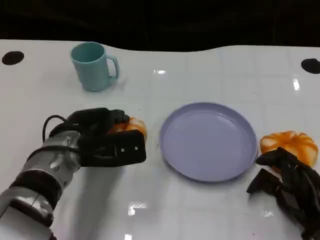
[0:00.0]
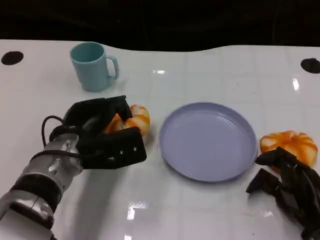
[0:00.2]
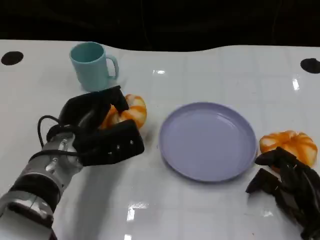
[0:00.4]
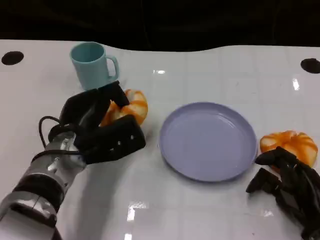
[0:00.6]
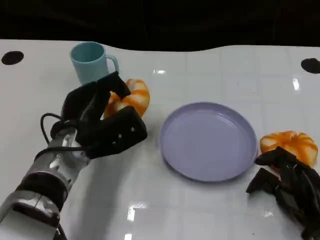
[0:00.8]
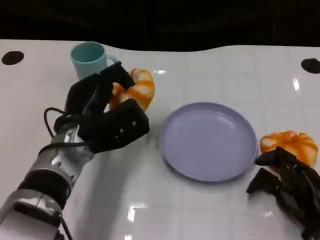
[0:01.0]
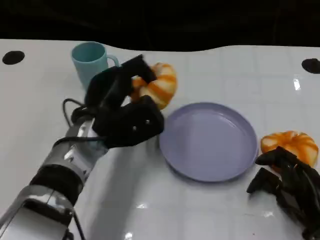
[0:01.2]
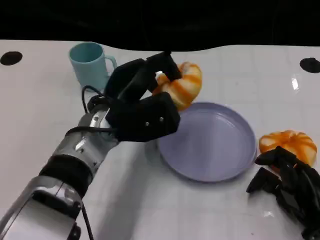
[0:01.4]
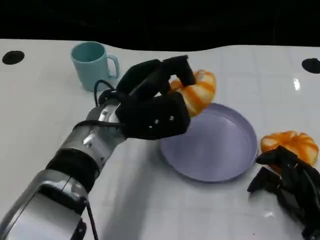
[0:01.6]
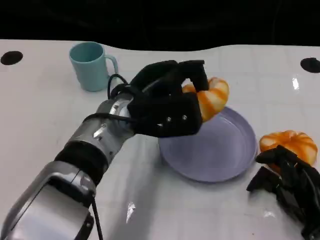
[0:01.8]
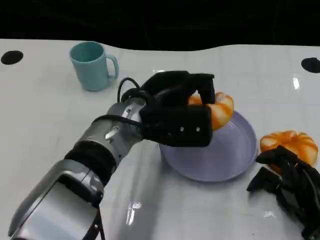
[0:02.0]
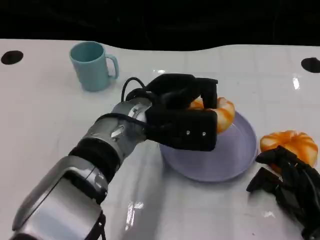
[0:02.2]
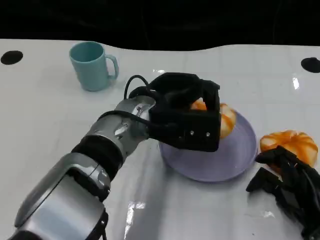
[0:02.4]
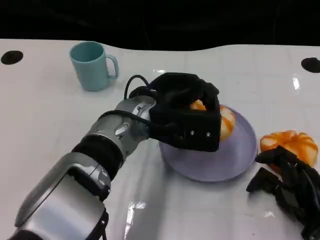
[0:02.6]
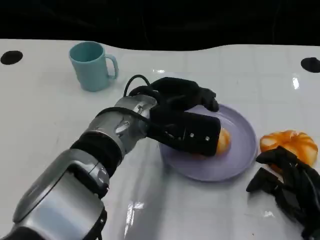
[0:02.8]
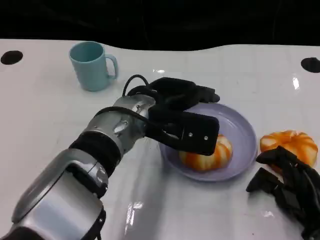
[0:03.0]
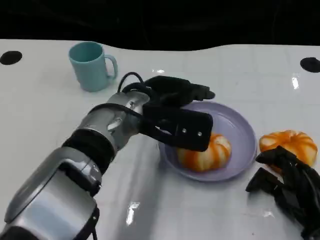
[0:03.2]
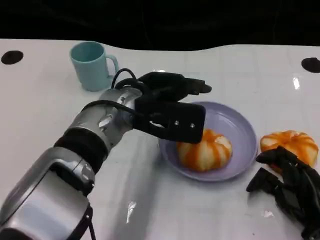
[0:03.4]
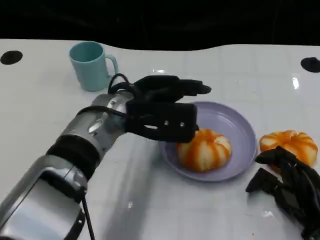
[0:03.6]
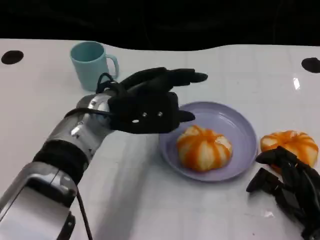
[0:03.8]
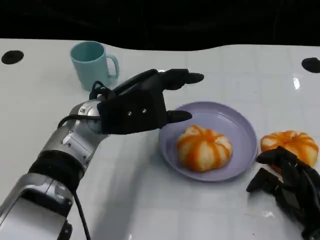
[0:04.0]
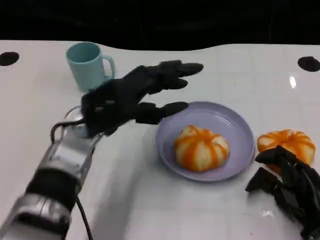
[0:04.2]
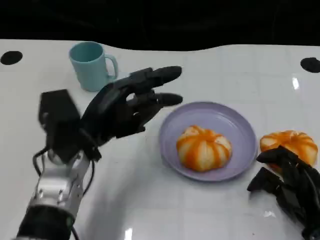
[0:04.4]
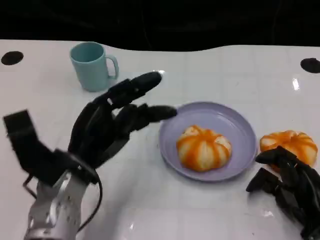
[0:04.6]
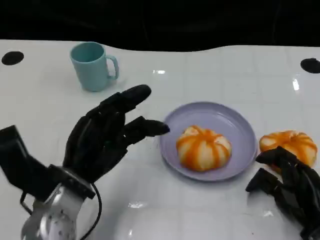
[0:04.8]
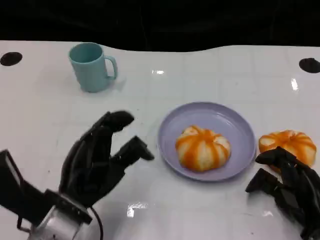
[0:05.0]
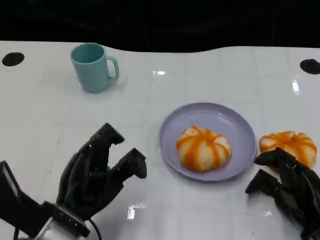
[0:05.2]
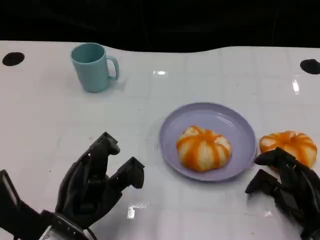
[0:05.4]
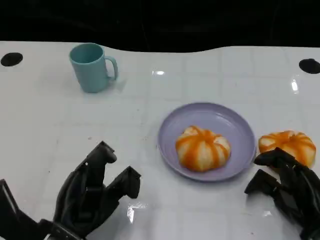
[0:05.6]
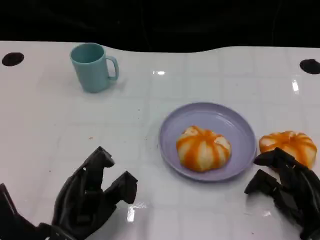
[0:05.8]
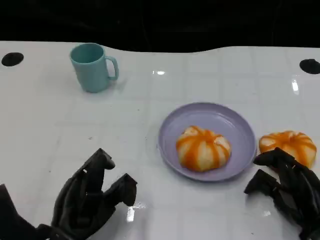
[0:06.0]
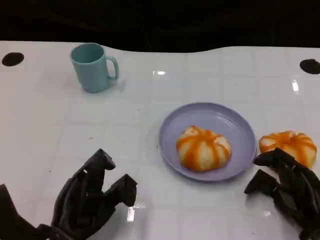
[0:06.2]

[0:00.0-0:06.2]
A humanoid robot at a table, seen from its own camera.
Task of the whole recording: Grasp the bread from the table and place it into the plate.
0:00.0 to 0:01.6: The left hand moves to the right and upward, about 10 cm.
0:03.2 to 0:04.6: The left hand goes some 15 cm to the left, backward and downward.
0:04.6 to 0:06.2: The left hand goes approximately 10 cm backward and downward.

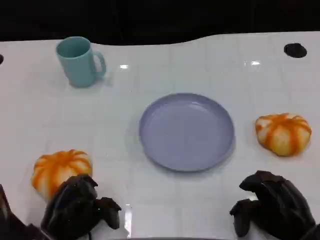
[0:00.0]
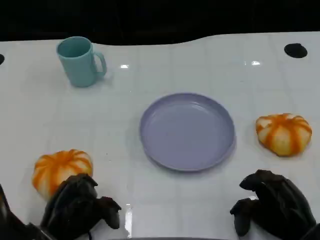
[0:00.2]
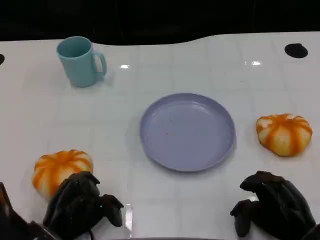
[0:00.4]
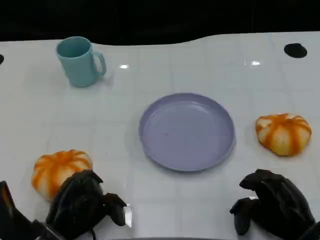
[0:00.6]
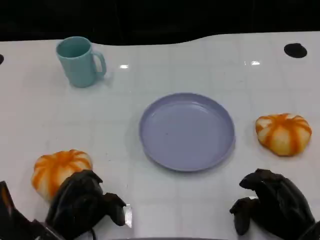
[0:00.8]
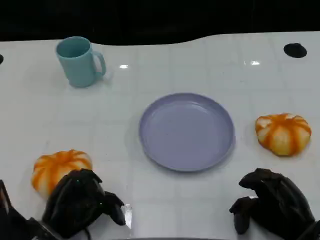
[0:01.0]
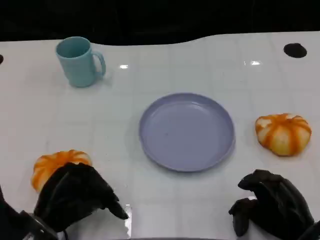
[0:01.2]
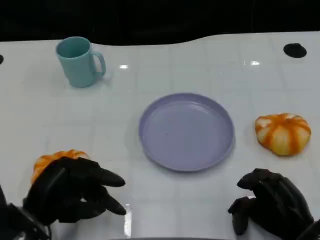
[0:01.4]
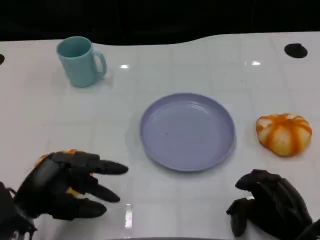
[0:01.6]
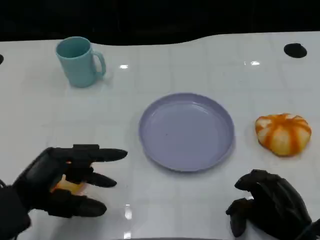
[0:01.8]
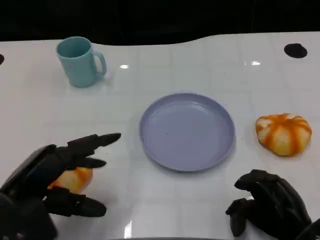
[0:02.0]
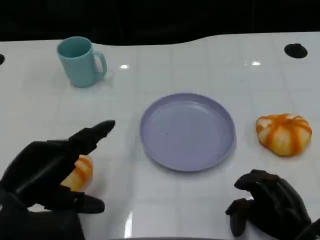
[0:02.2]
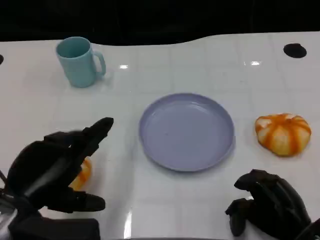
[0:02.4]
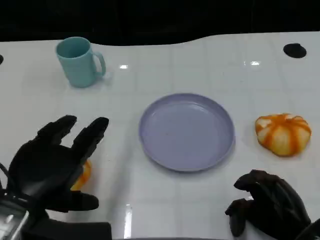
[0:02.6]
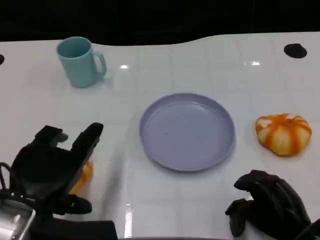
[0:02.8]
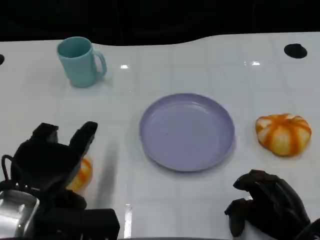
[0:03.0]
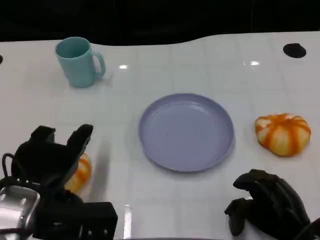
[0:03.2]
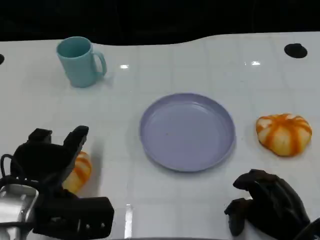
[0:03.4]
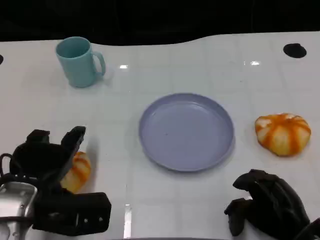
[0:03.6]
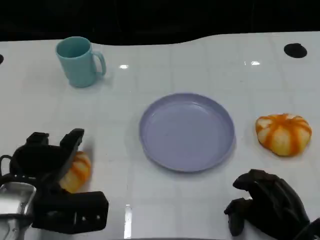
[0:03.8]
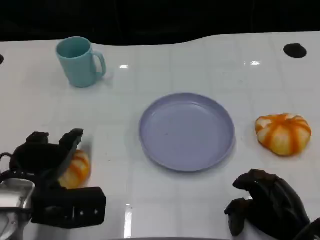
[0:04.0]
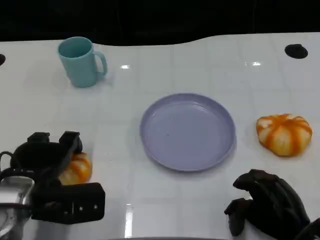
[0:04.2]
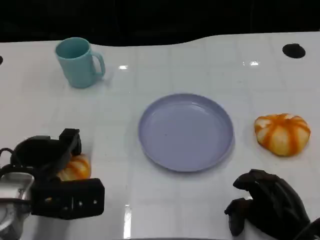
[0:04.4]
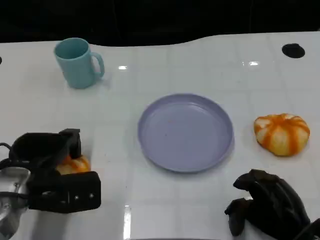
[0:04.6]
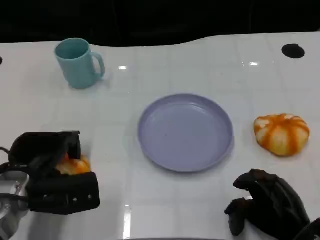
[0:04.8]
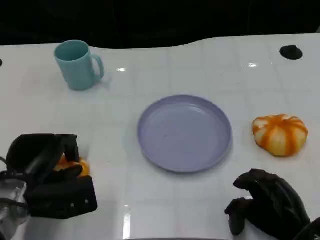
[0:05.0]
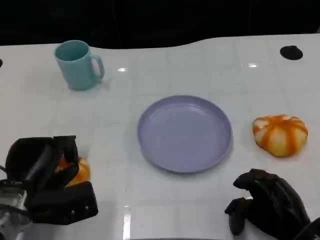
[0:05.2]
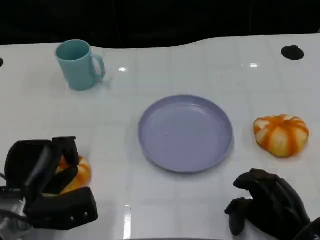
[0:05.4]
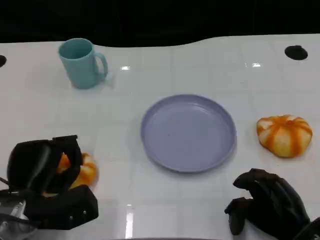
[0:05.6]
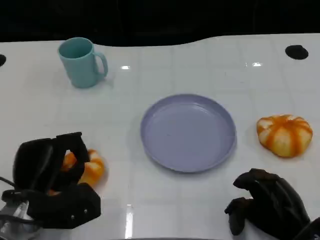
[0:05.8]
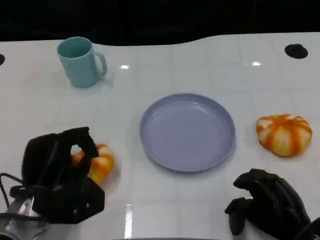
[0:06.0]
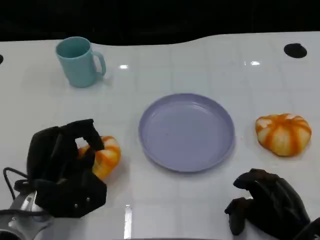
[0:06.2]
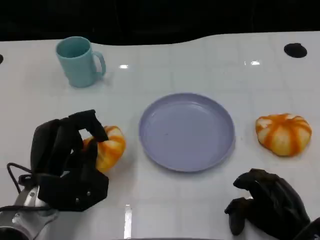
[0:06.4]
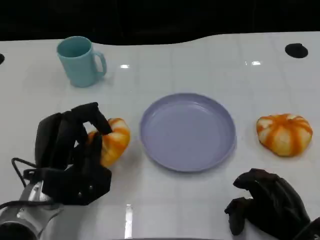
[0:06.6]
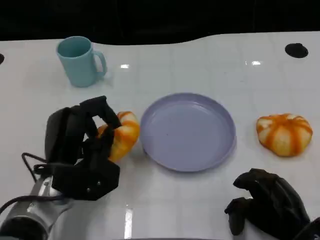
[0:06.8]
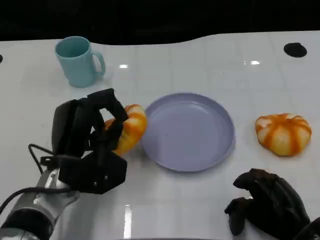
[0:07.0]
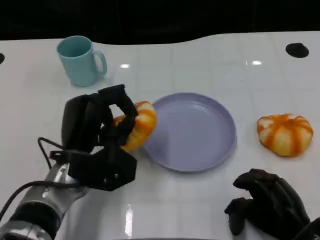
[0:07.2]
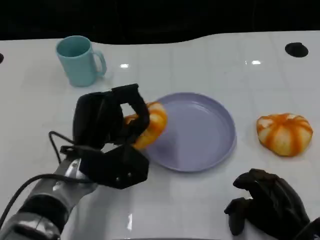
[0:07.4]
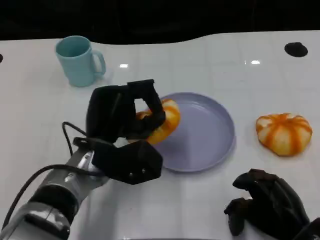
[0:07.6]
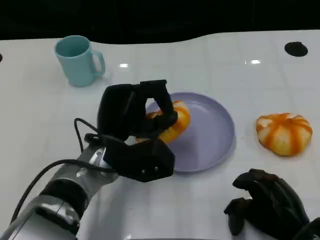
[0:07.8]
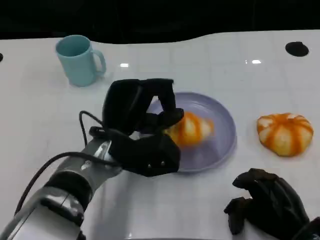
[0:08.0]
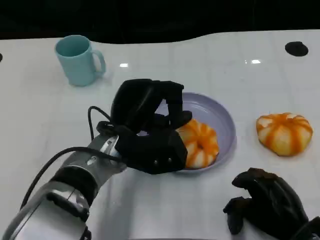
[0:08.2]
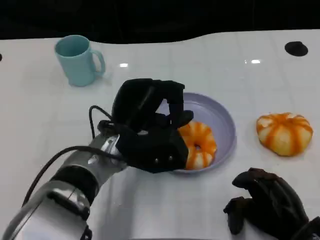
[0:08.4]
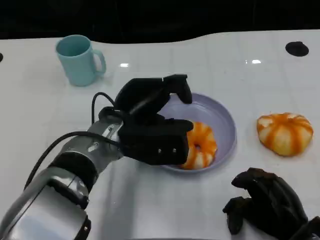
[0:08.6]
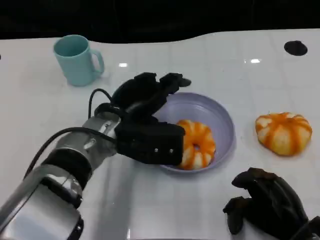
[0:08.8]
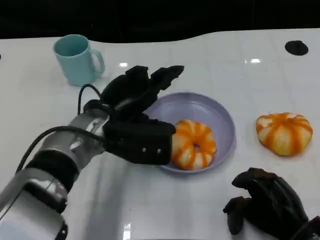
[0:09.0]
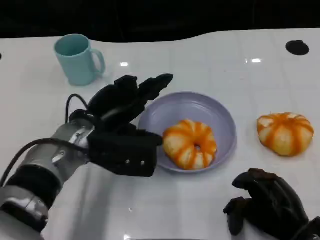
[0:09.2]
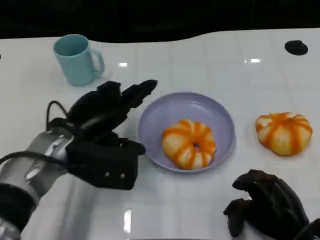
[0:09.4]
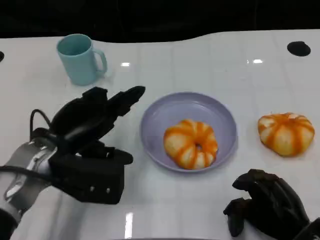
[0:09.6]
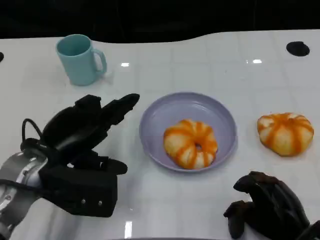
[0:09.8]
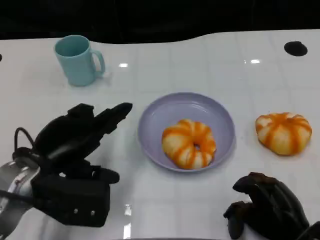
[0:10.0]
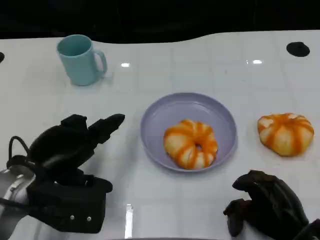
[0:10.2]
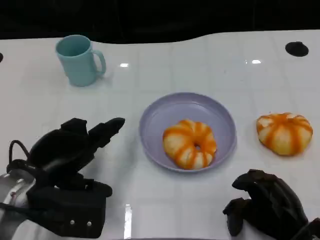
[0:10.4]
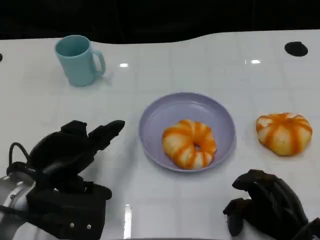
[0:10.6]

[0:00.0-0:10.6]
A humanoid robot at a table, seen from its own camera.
Task of the whole recording: Grasp the bread from the table and place it into the plate.
0:00.0 to 0:01.6: The left hand moves upward, some 10 cm.
0:01.6 to 0:03.0: The left hand shifts by some 5 cm.
0:03.0 to 0:04.6: The left hand shifts about 5 cm forward.
0:06.0 to 0:07.6: The left hand shifts some 10 cm to the right and upward.
0:09.0 to 0:10.6: The left hand shifts roughly 15 cm to the left and backward.

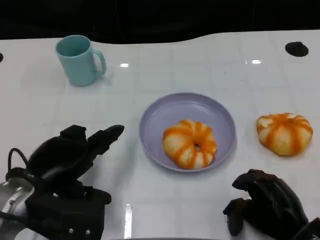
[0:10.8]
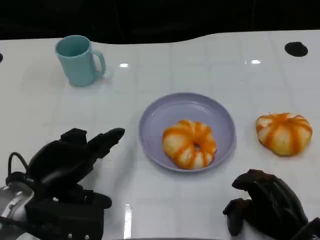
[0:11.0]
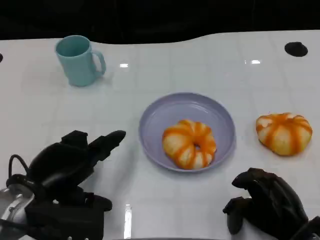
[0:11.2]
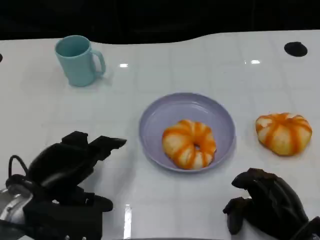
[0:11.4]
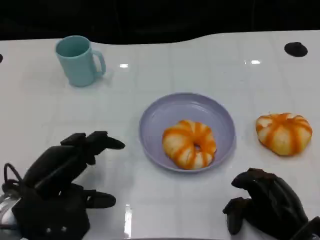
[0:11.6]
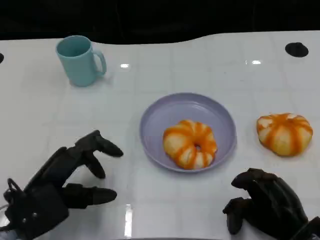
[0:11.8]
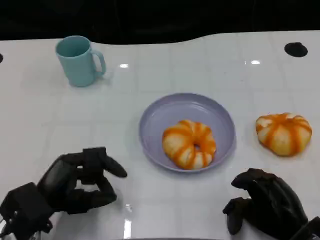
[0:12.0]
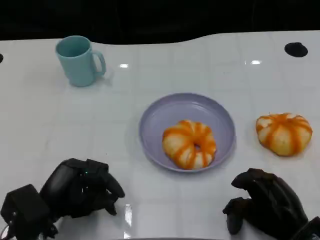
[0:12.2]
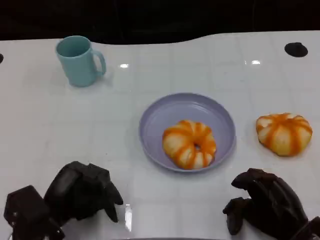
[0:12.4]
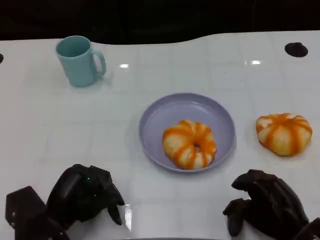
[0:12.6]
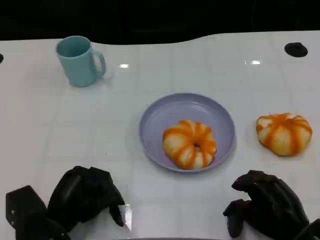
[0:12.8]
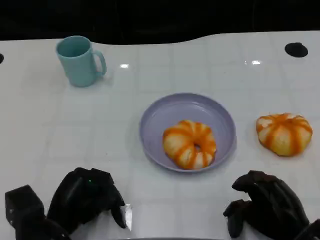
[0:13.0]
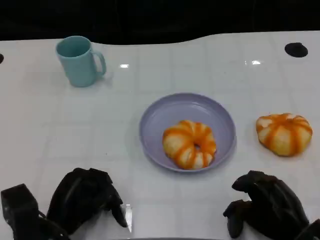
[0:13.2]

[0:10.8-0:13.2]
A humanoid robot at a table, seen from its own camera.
Task of the whole recording: Grasp the bread from the table and place it into the plate.
0:10.8 to 0:12.0: The left hand moves downward, roughly 5 cm.
